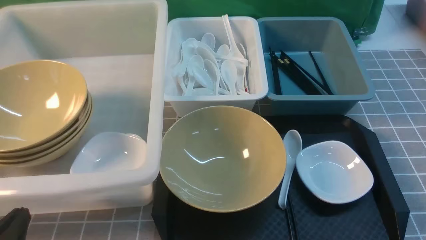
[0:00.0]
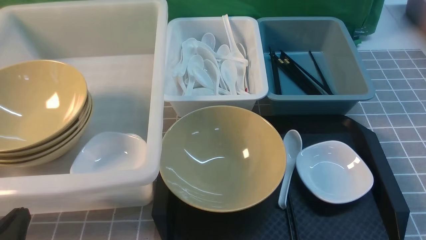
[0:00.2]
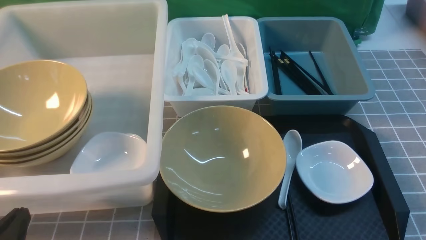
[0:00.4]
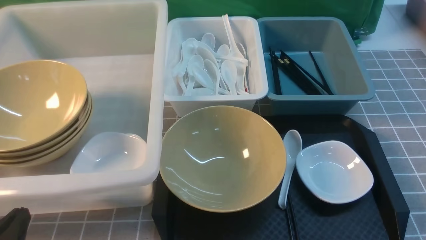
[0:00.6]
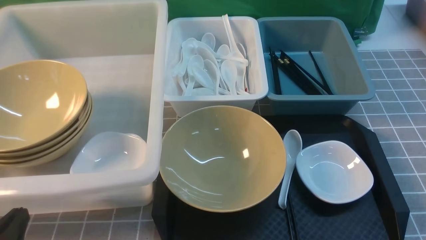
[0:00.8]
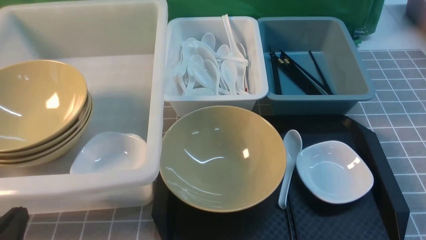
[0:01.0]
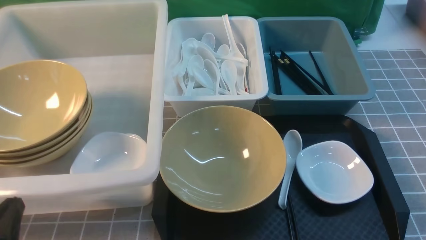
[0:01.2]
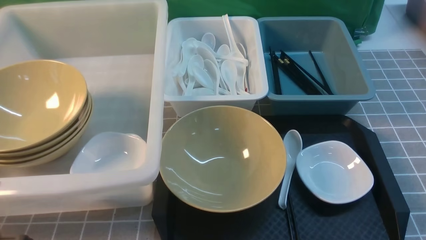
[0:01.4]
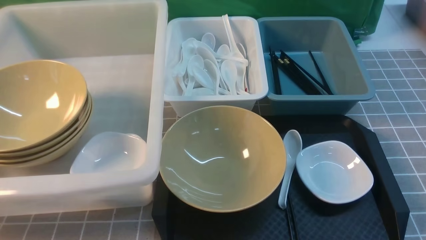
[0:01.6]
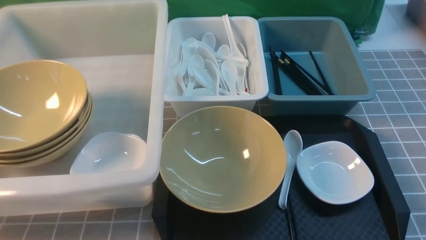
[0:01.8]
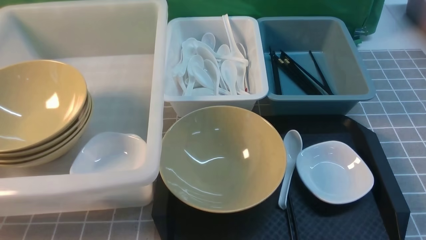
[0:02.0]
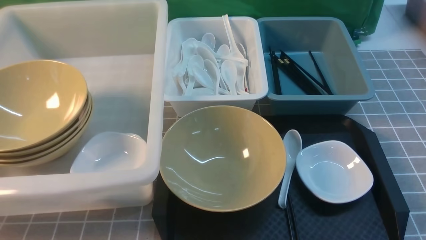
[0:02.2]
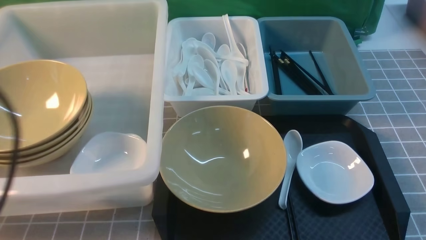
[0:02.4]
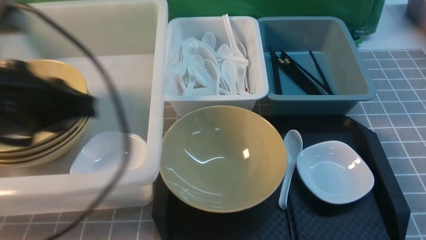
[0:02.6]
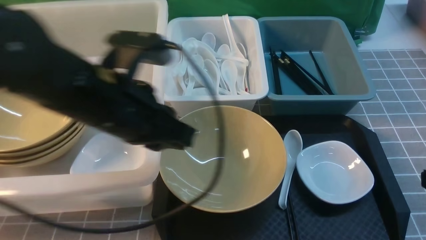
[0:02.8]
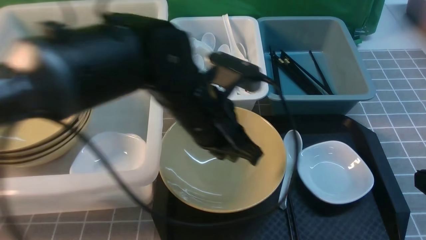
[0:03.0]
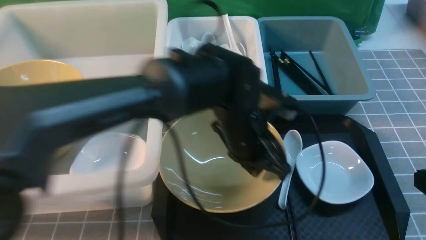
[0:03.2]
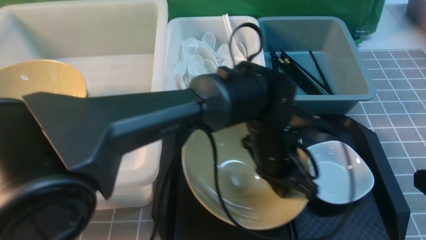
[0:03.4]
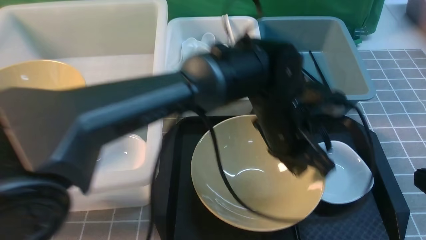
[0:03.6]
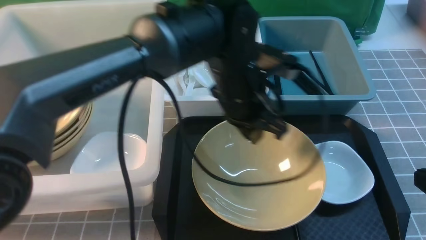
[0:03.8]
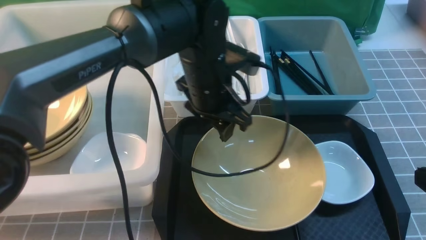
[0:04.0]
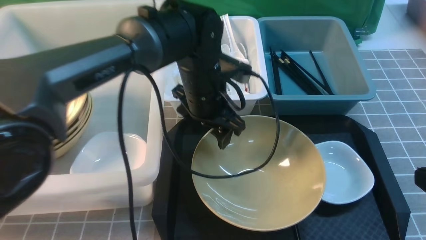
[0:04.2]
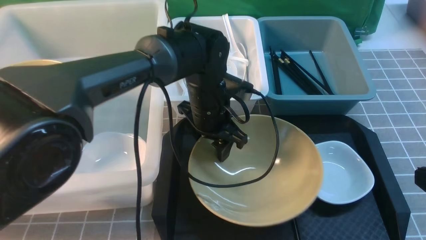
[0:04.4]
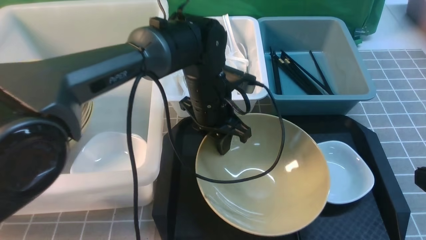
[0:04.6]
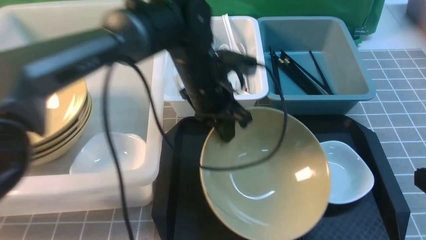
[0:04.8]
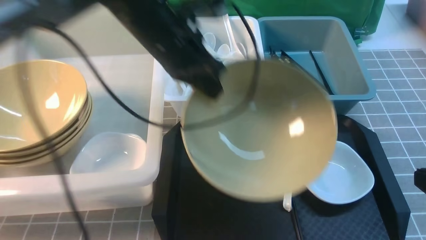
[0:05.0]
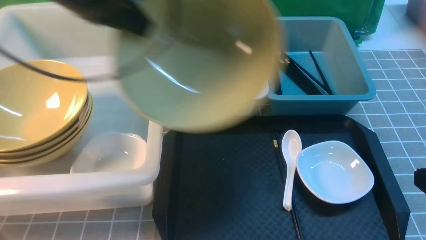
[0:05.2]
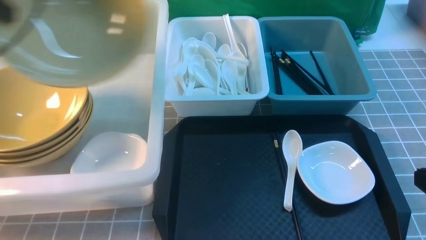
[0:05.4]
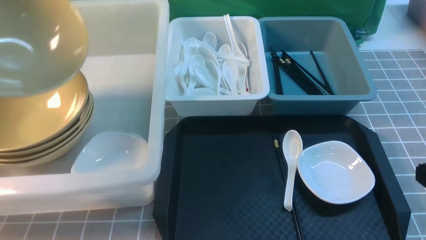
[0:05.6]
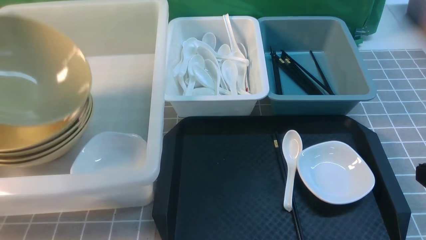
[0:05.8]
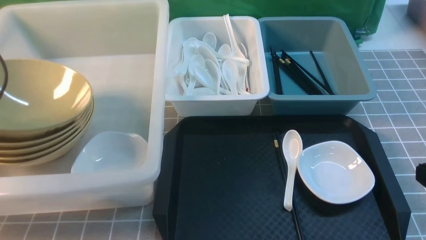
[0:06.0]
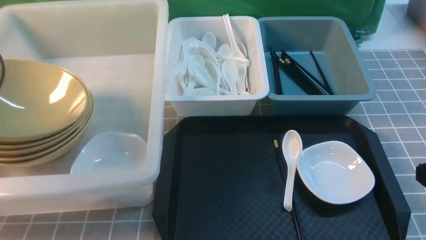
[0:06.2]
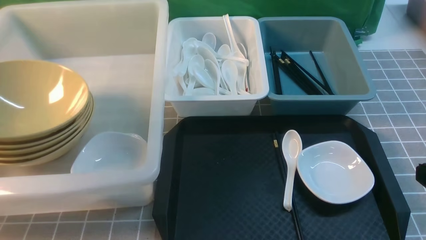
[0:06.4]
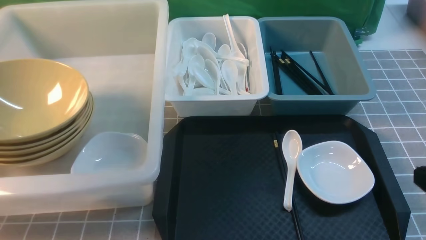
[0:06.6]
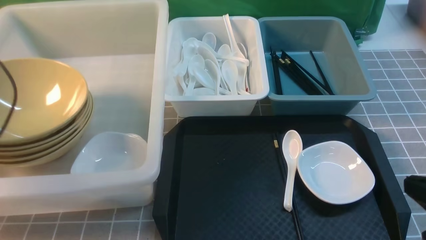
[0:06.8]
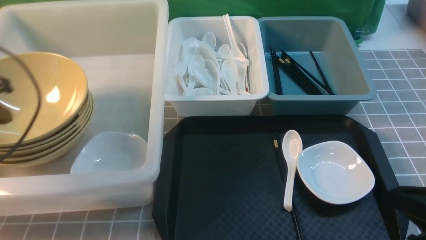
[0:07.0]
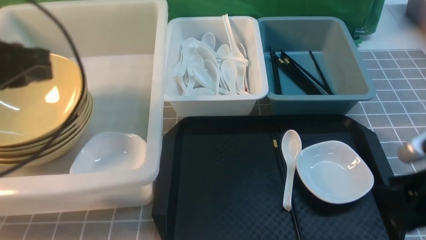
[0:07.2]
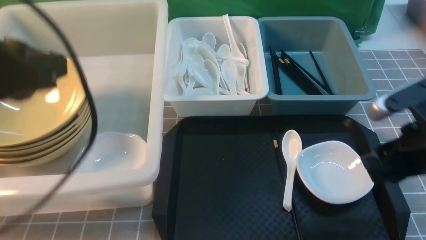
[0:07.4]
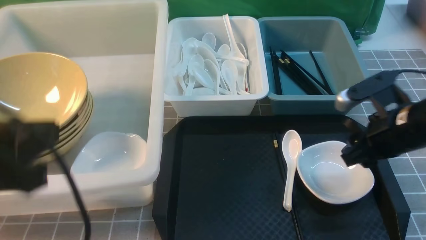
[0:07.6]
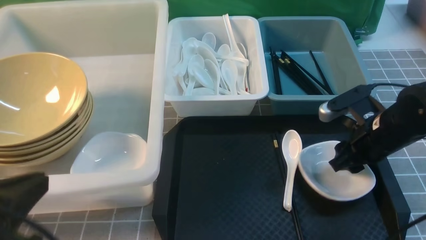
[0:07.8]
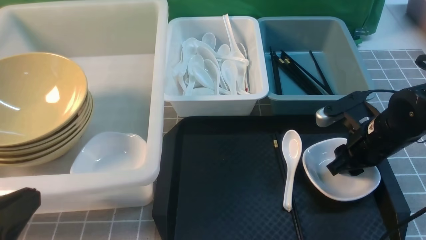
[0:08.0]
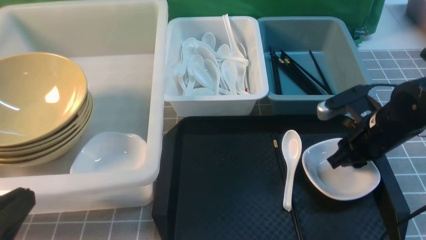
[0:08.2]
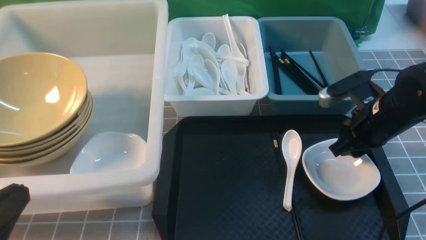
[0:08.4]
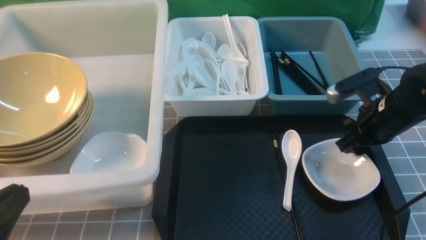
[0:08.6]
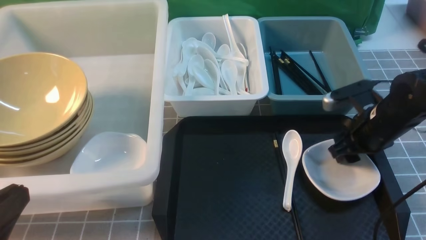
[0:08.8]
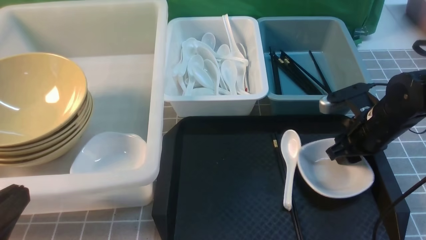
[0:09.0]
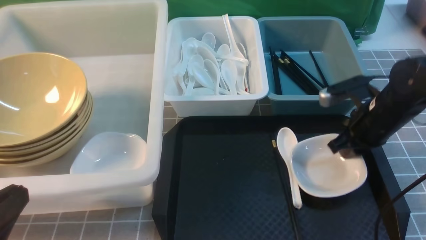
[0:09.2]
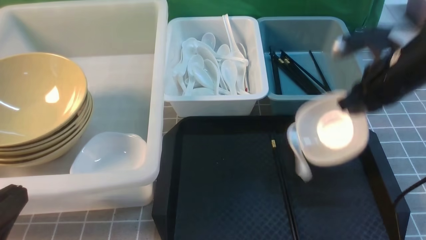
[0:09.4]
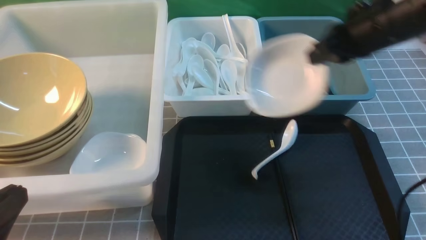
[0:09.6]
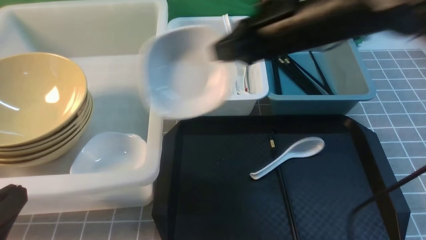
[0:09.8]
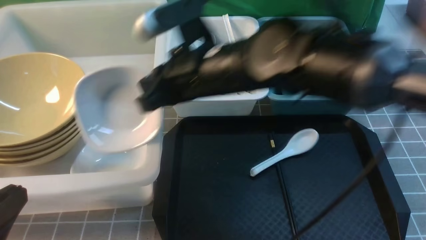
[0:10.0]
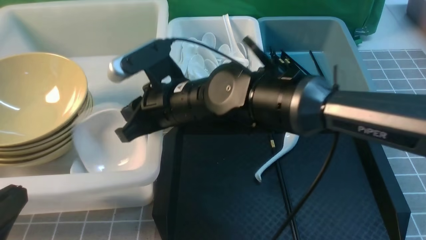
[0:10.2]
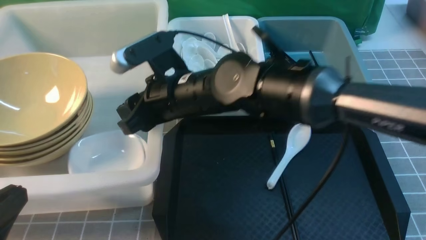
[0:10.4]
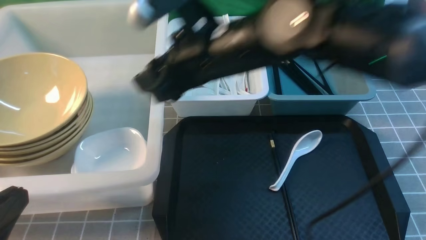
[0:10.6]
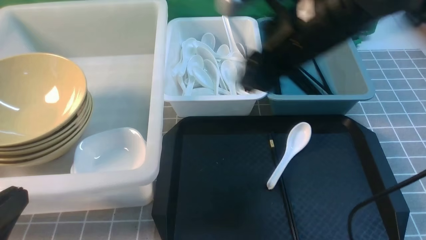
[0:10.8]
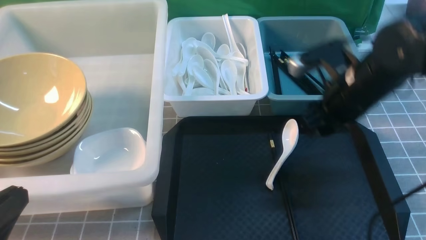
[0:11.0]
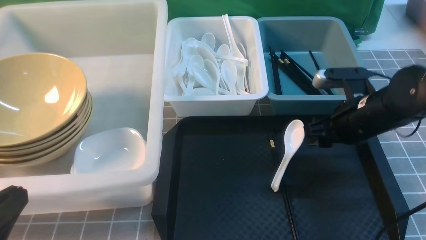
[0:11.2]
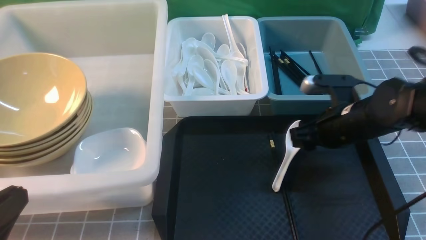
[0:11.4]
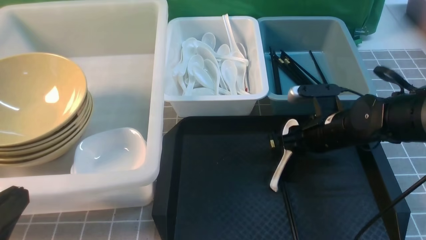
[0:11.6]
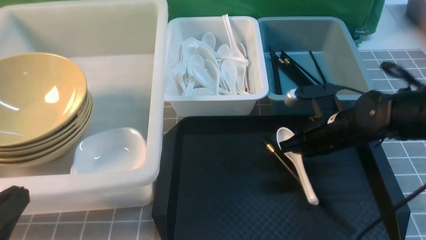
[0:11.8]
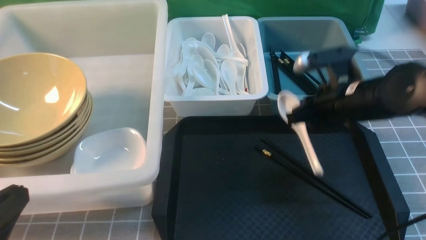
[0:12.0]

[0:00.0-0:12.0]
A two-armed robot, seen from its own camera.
Task of the whole recording: on grey table put chopsticks spoon bowls plates into blue grey white boxes.
Step, 0:00.0 to 0:04.6: use the left arm to grab the yellow noodle bowl on the left.
Step, 0:05.0 to 0:06.4: use the left arm to put the noodle bowl into the large storage box on the left.
Step, 0:06.6 to 0:09.2: use the right arm to grab the plate.
Step, 0:09.4 to 0:10.4: use the right arm to put the plate into the large storage box on the left.
Step, 0:10.8 to 0:11.8: use the right arm to grab the soup spoon in the middle.
0:01.6 to 0:03.0: The right gripper shifts about 5 cm forward, and goes upward and returns, some 10 cm each way, while the left gripper travels to the right and forward by about 30 cm.
0:03.0 to 0:04.4: The left gripper heads forward and downward, covering about 15 cm, moves roughly 15 cm to the right and comes back, and opens up.
0:04.4 to 0:06.0: The left gripper moves to the left, roughly 40 cm, and closes up.
0:06.0 to 0:07.6: The left gripper heads to the right and backward, covering some 25 cm, and closes its fingers. The right gripper heads forward, covering approximately 15 cm, and opens its fingers.
0:07.6 to 0:09.0: The left gripper goes approximately 15 cm backward and downward. The right gripper moves forward and downward, some 10 cm.
0:09.0 to 0:10.4: The right gripper is displaced to the left by some 30 cm, and closes and opens again.
0:10.4 to 0:12.0: The right gripper travels to the right by approximately 20 cm, and closes its fingers.

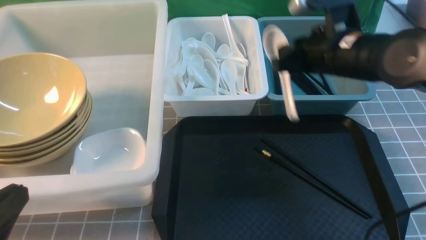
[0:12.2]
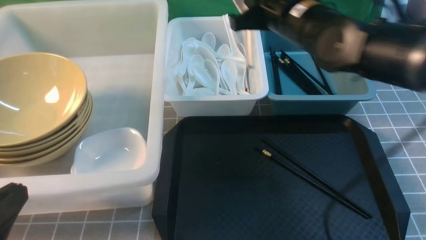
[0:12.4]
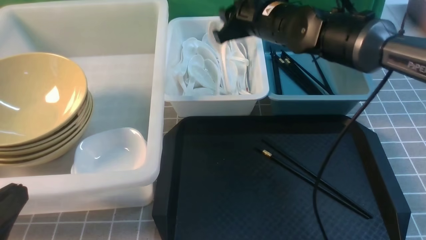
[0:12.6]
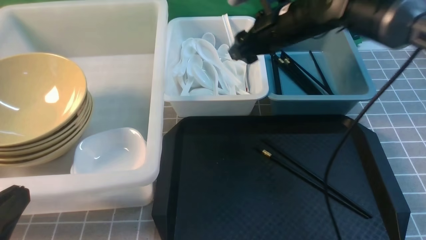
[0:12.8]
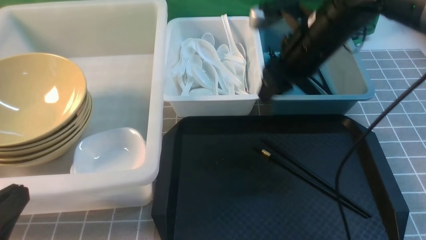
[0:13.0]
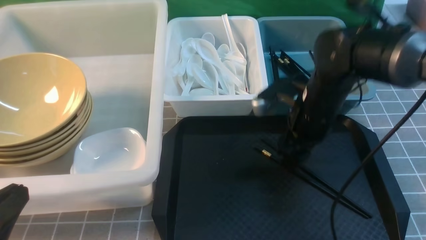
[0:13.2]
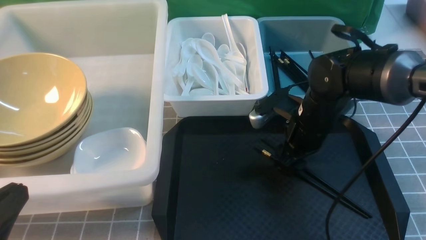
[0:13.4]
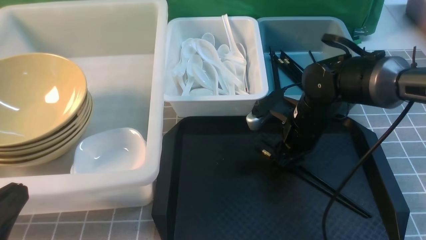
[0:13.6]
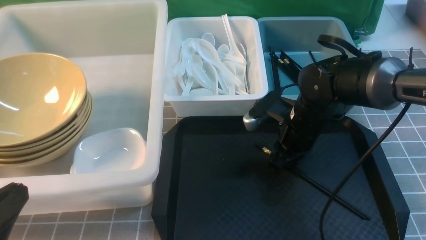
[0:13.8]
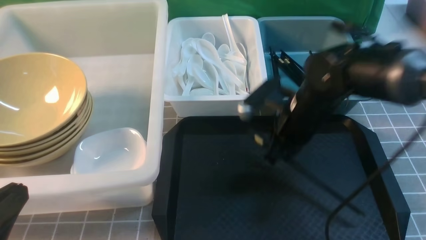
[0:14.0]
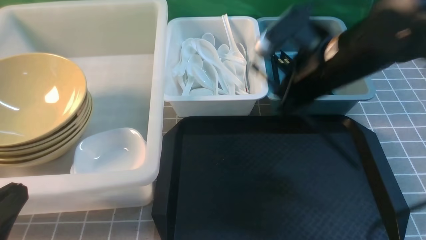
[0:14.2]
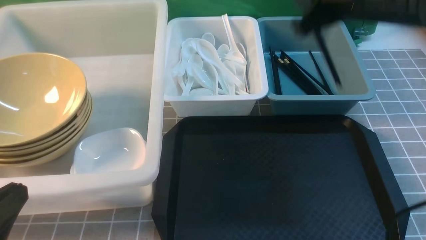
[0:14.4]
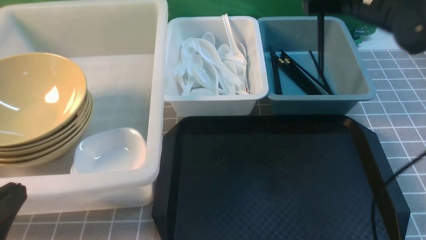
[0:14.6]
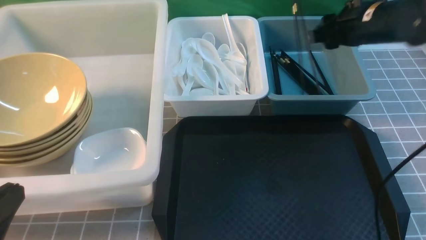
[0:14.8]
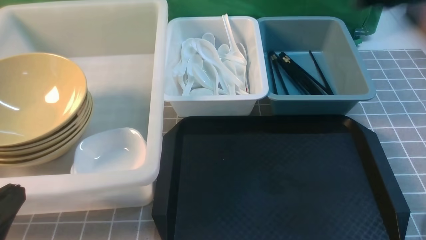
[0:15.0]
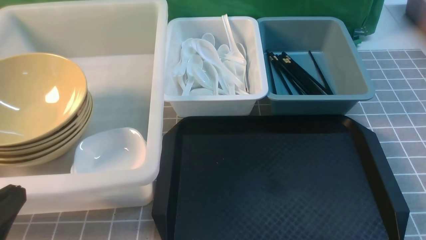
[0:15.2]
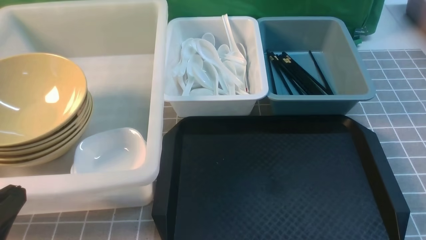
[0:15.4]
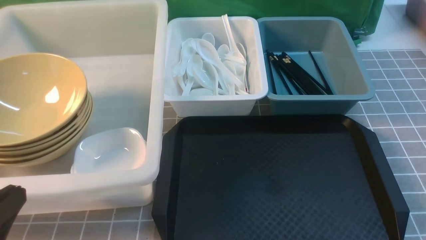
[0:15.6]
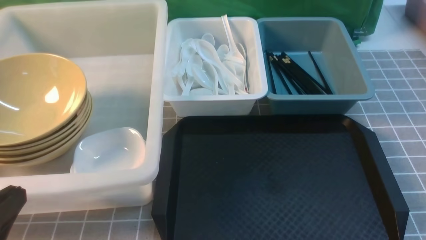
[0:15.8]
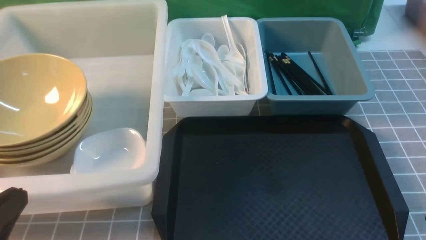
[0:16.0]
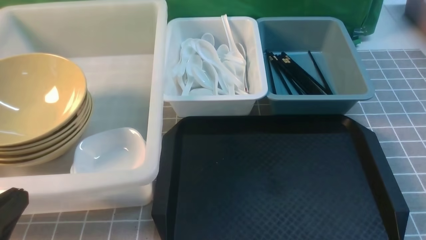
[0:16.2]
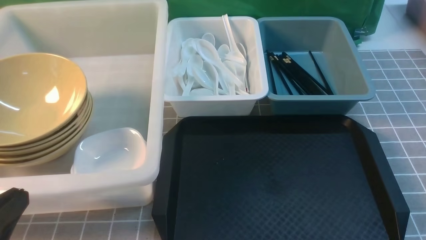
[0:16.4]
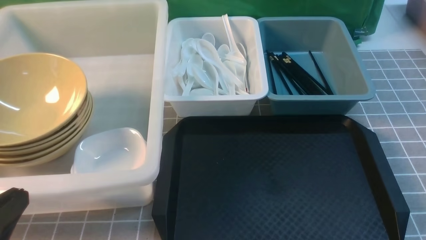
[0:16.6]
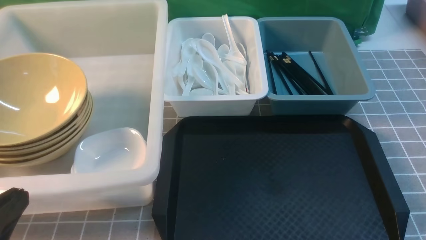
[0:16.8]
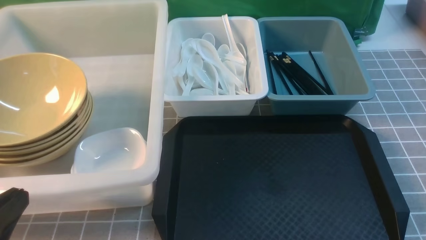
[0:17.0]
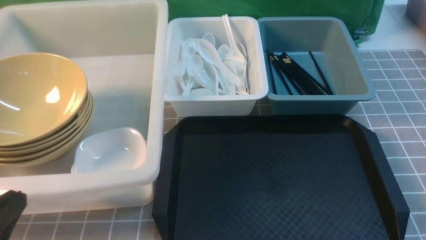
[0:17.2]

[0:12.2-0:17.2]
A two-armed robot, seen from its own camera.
Task of the whole recording: on grey table put chopsticks spoon bowls plates into blue grey white boxes.
Step, 0:12.2 to 0:12.8: use the right arm to put the soup spoon into the small storage box in the middle.
Step, 0:13.0 to 0:13.8: use the right arm to grab the chopsticks.
Step, 0:14.2 to 0:15.0: use the right arm to put the chopsticks into the small storage box on the right.
0:12.2 to 0:13.8: The right gripper is displaced downward by roughly 10 cm, and opens and closes again.
0:13.8 to 0:15.6: The right gripper is displaced backward, to the right and upward by some 35 cm, and closes up.
